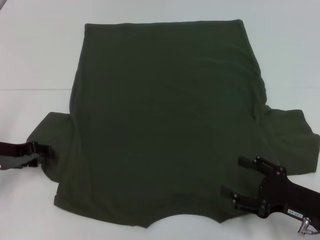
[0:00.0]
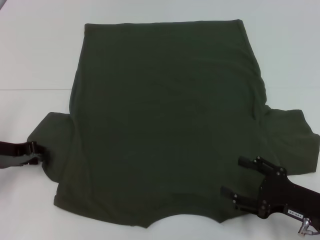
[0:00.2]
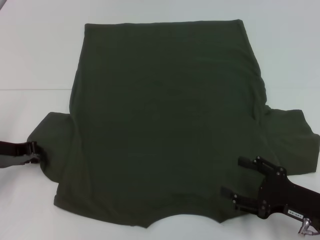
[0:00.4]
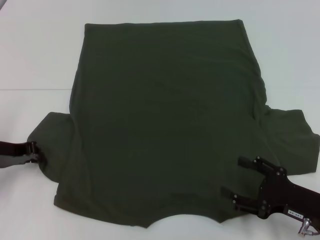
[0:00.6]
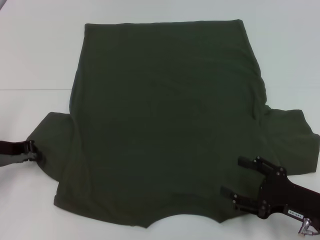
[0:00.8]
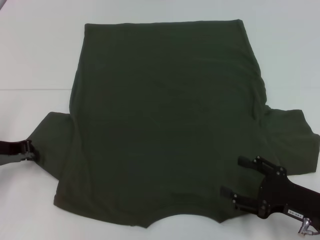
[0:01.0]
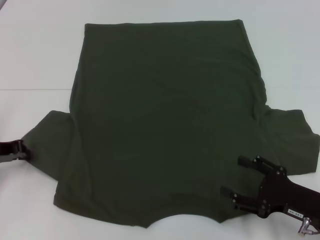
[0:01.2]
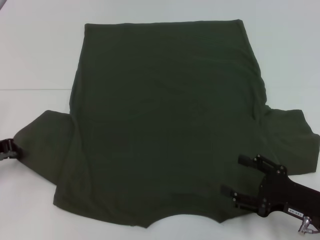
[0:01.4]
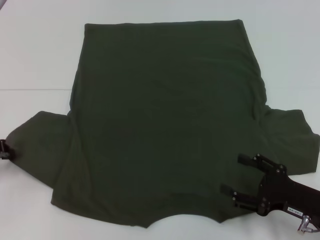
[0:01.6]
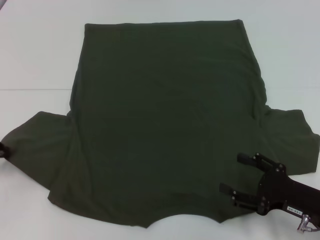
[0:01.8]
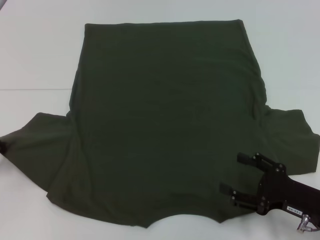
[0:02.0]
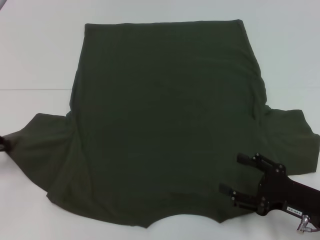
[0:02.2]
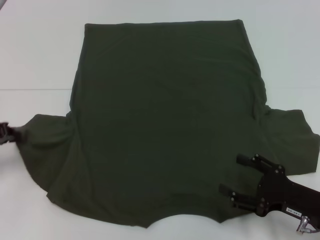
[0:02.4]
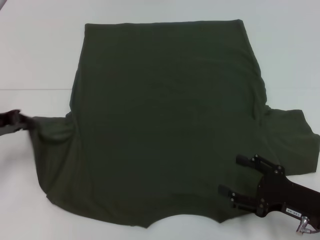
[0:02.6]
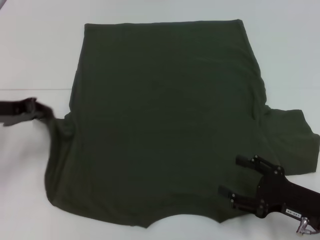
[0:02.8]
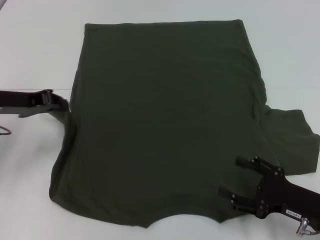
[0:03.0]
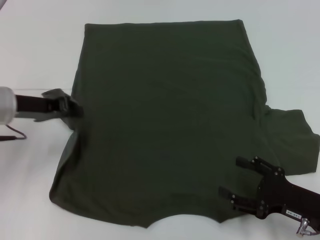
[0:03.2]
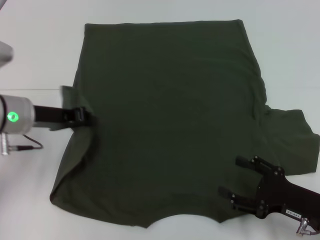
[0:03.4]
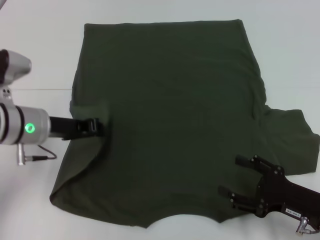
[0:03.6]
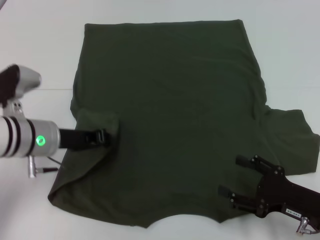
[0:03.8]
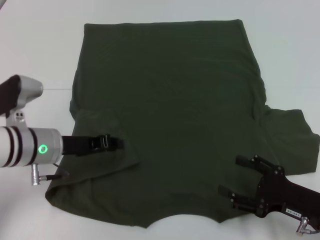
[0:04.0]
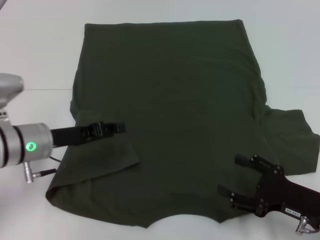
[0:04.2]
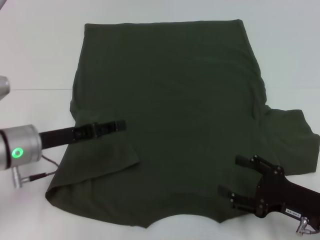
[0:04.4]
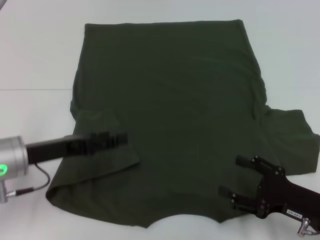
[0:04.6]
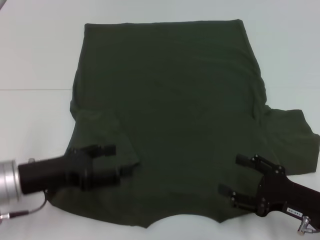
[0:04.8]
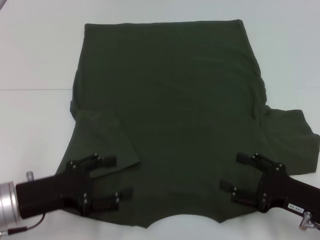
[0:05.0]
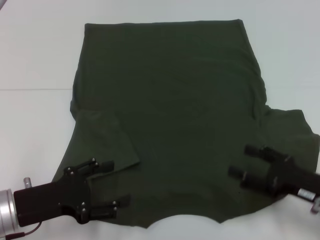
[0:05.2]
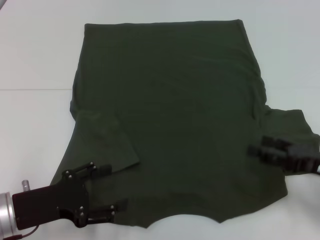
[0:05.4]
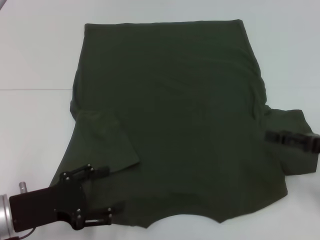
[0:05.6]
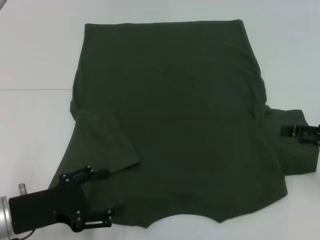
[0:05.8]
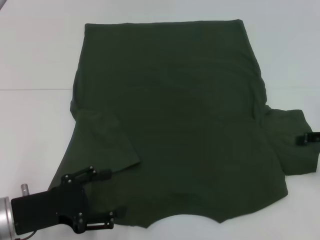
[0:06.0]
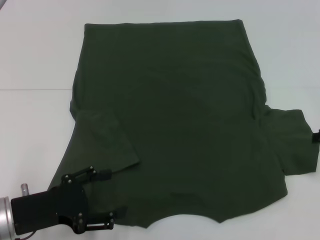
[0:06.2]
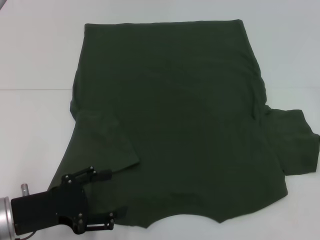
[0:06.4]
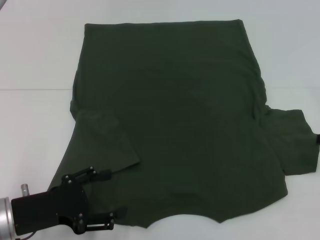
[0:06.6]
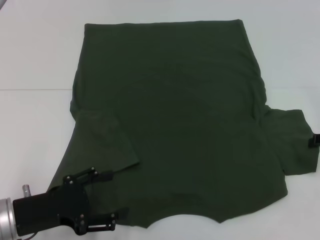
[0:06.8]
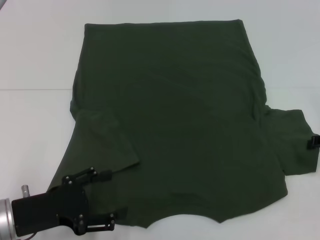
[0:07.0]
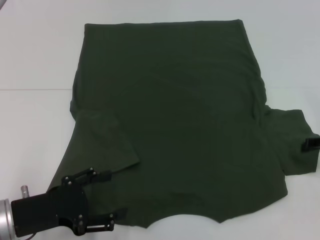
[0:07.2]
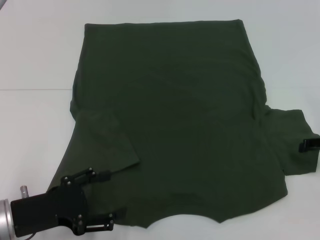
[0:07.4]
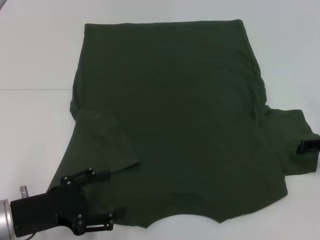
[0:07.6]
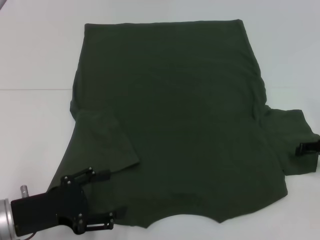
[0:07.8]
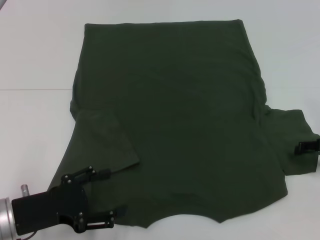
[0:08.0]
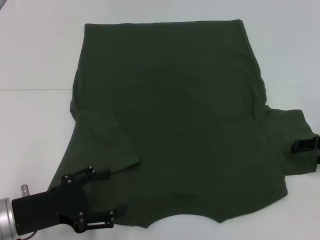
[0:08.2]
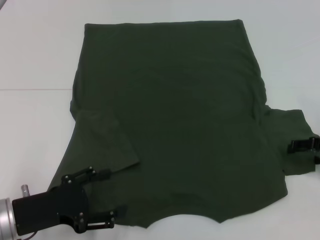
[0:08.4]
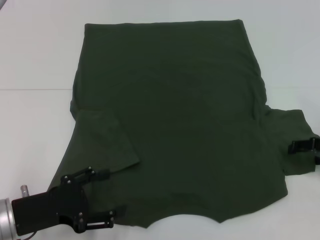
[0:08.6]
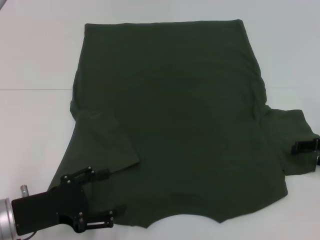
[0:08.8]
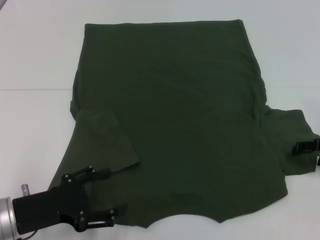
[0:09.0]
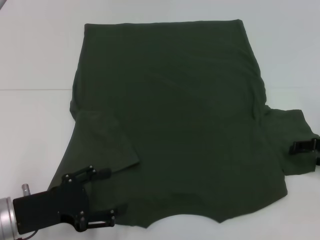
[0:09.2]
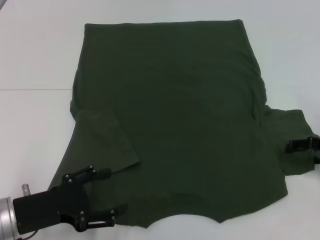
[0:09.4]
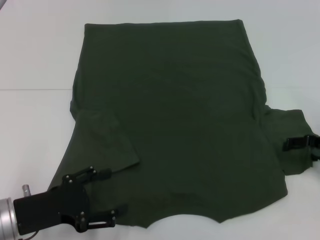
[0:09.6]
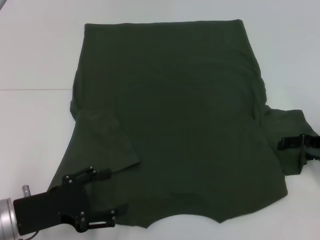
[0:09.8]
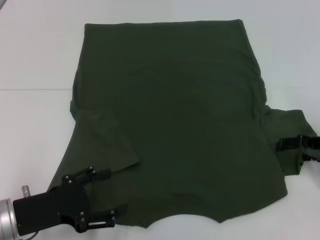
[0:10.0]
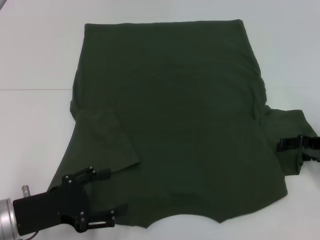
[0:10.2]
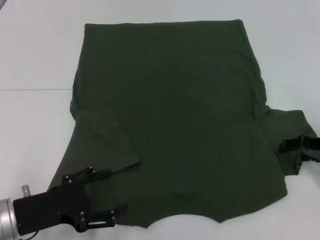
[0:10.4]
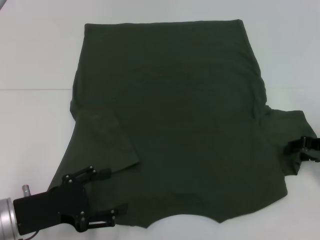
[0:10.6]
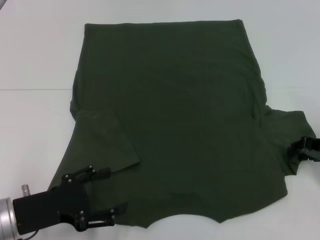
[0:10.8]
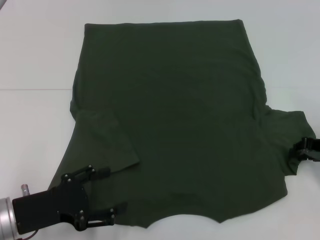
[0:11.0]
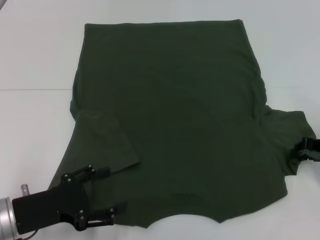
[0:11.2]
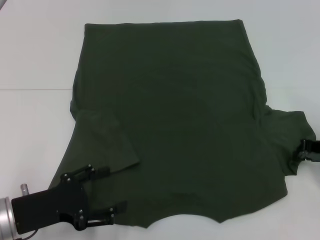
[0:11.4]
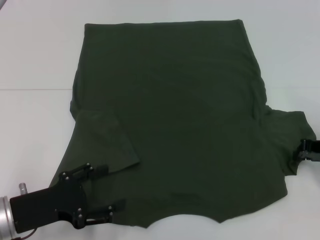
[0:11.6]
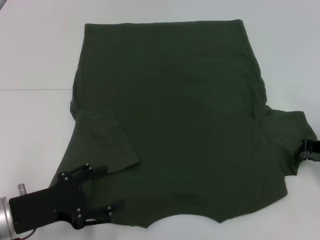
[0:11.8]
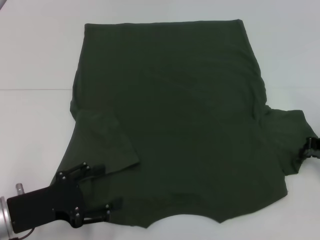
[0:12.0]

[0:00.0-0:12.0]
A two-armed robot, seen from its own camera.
Step, 0:00.0 to 0:03.8: Fold the bottom left sleeve with your left hand.
0:00.0 to 0:01.6: The left gripper closes.
0:01.6 to 0:03.0: The left gripper is displaced to the right and upward by some 10 cm.
0:03.0 to 0:04.4: The left gripper goes some 10 cm downward and to the right, and opens its fingers.
0:04.4 to 0:06.0: The left gripper heads backward, covering about 10 cm, and opens up. The right gripper is displaced upward, to the right and forward by approximately 15 cm.
0:07.6 to 0:10.4: The grippers make only small movements.
0:10.4 to 0:12.0: The right gripper closes its fingers.

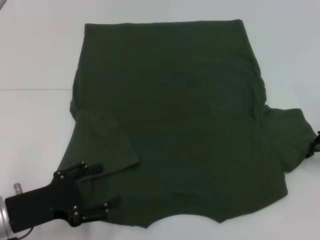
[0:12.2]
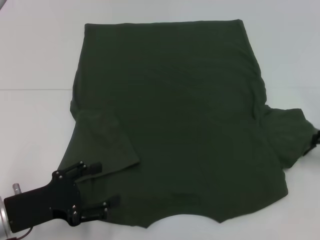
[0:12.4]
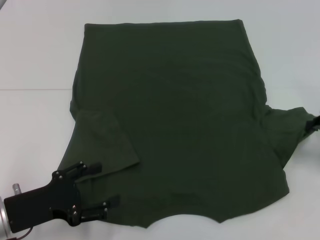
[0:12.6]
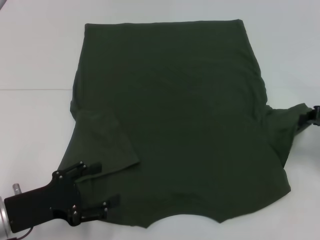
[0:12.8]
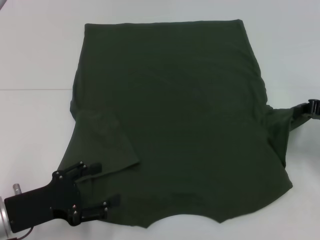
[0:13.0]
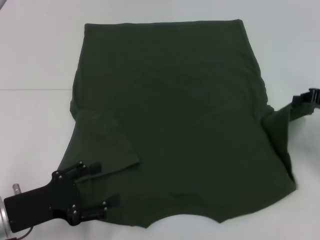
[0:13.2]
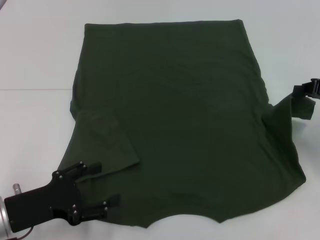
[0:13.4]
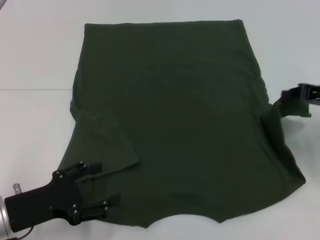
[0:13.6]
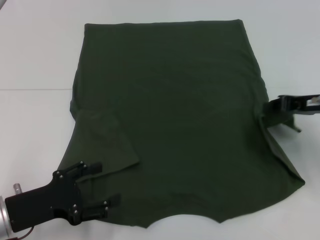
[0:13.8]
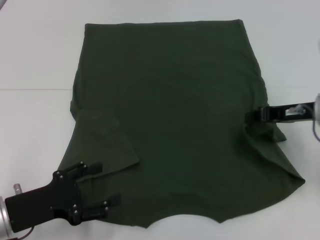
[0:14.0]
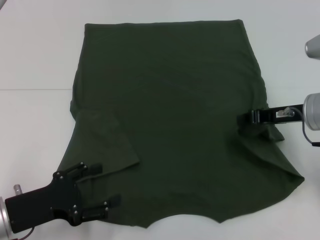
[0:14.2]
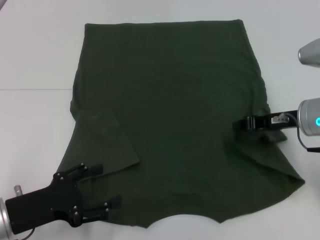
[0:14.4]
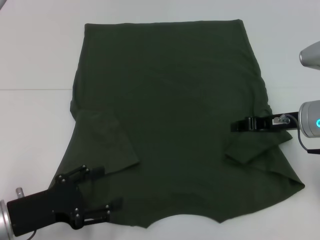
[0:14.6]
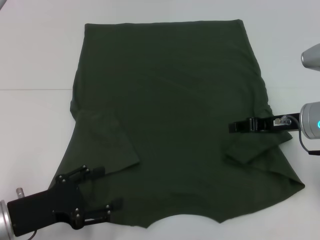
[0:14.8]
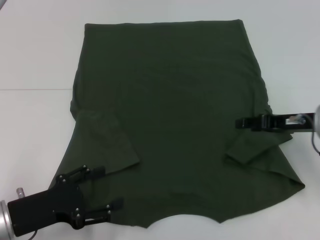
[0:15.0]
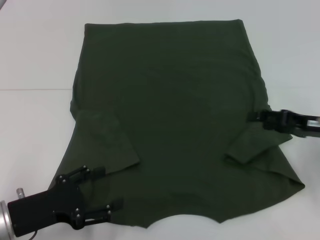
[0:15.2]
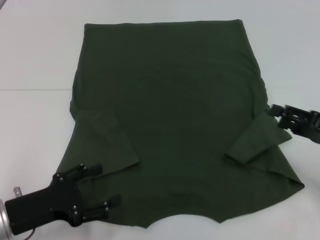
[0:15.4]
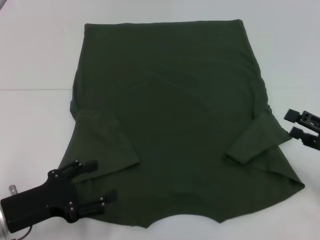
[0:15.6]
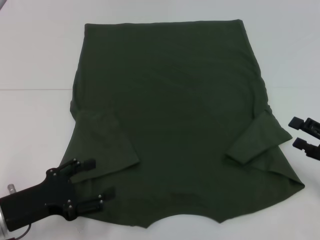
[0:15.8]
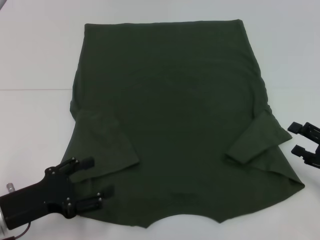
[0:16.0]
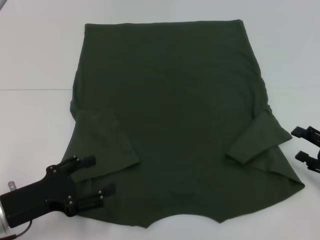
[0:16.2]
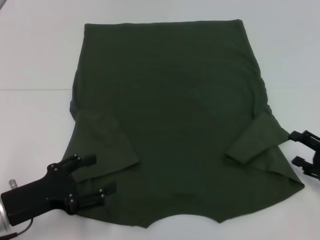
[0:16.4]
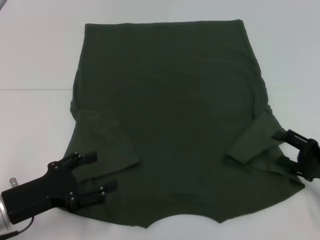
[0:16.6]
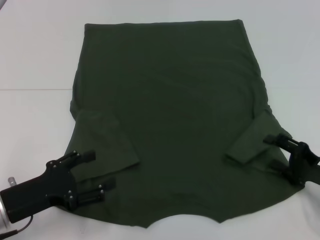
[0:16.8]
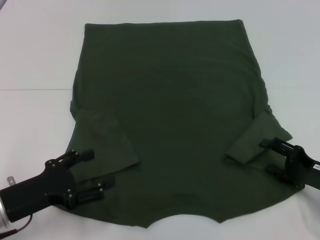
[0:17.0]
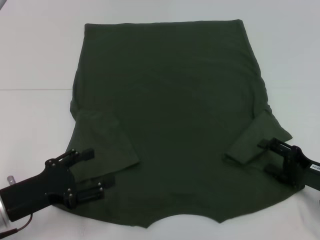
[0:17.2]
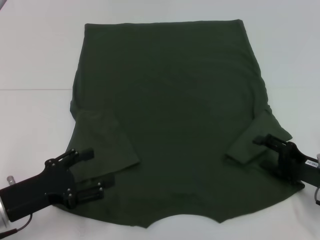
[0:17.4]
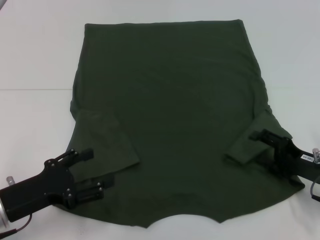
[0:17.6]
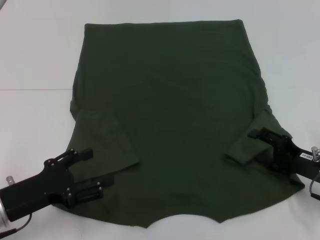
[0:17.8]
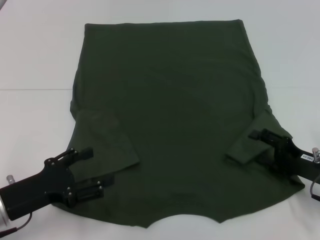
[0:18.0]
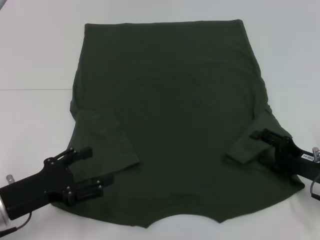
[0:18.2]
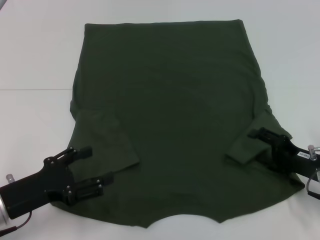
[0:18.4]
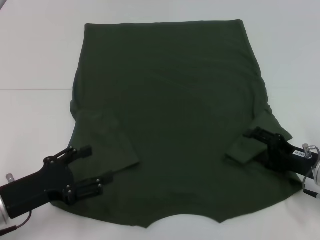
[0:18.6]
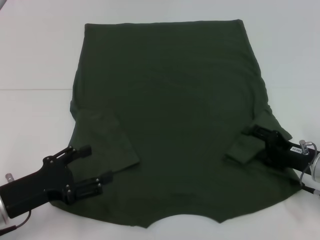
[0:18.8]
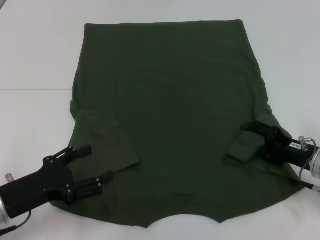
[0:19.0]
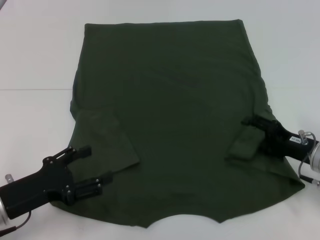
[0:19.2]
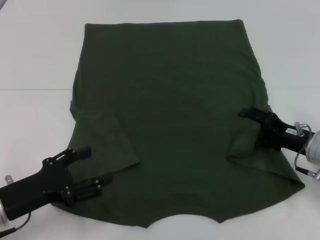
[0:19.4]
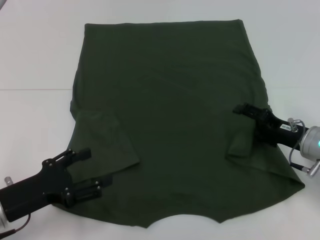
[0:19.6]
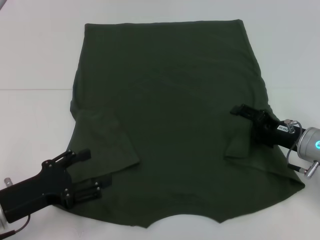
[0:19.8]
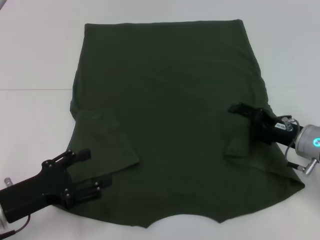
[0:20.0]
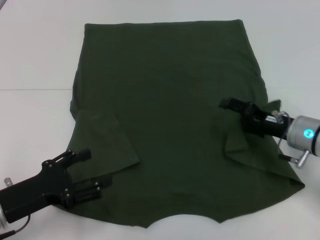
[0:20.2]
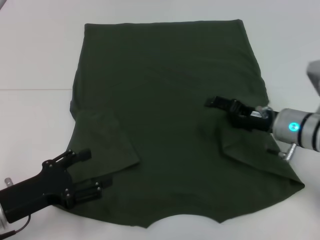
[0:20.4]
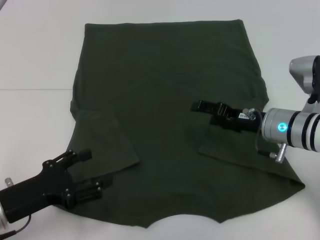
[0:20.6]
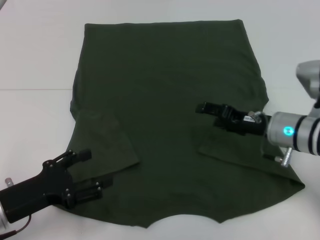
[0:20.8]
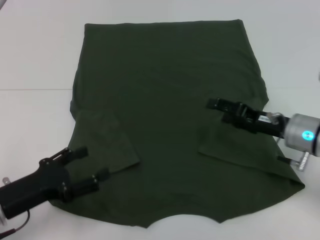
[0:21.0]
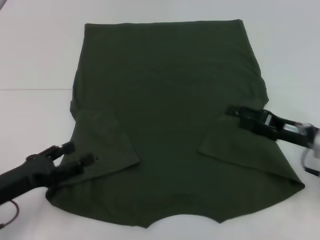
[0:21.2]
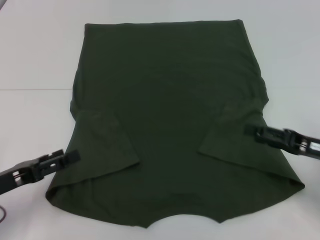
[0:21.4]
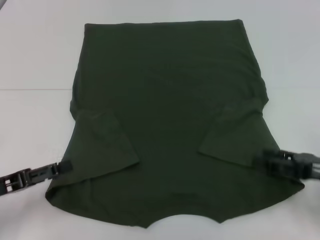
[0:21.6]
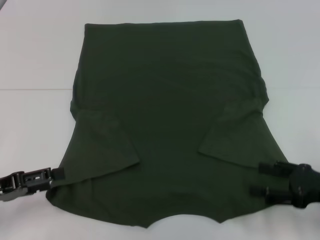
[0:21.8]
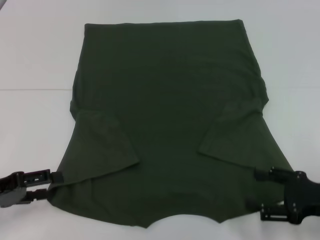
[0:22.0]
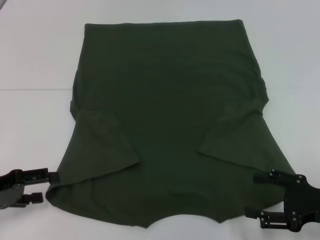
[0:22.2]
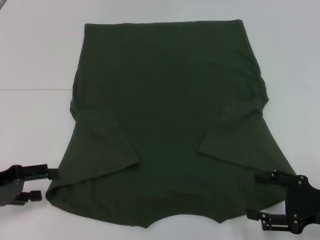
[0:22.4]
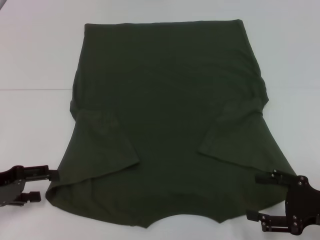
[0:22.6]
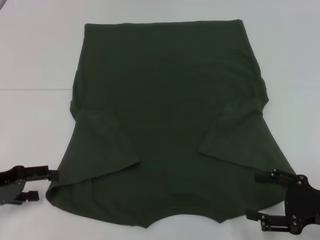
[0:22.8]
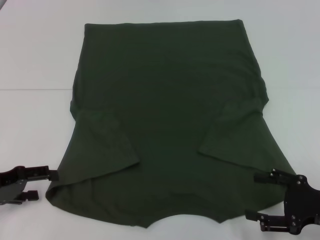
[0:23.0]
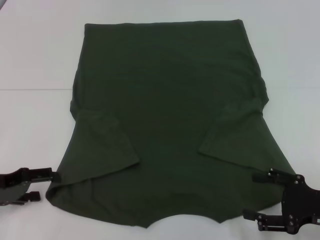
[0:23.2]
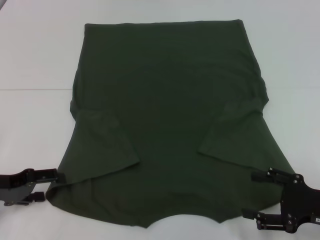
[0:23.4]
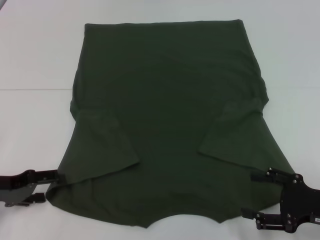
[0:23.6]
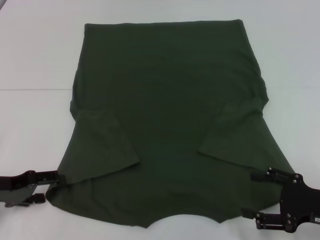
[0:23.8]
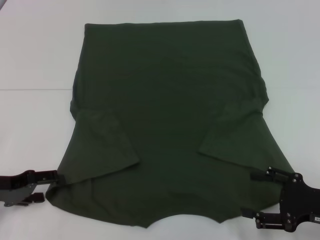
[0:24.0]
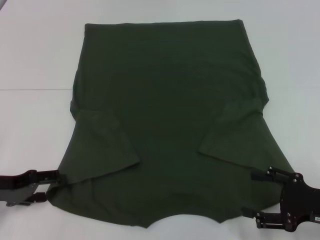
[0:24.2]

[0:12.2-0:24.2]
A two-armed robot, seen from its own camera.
Step, 0:12.2 to 0:20.8: Fold the bottom right sleeve with your right hand.
0:12.2 to 0:13.8: The right gripper heads to the left, covering approximately 5 cm.
0:13.8 to 0:15.2: The right gripper moves about 5 cm, and opens.
0:15.2 to 0:16.6: The right gripper is displaced downward and backward by approximately 10 cm.
0:16.6 to 0:18.2: The grippers make only small movements.
0:18.2 to 0:19.8: The right gripper ends up some 5 cm from where it was.
0:21.2 to 0:22.6: The right gripper goes approximately 10 cm backward, while the left gripper heads to the left, covering roughly 5 cm.
0:22.6 to 0:24.2: The grippers move only a little.
